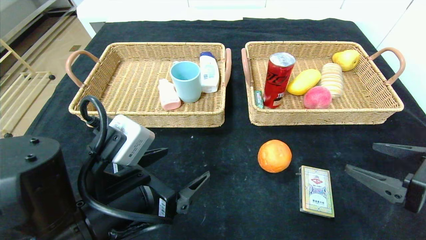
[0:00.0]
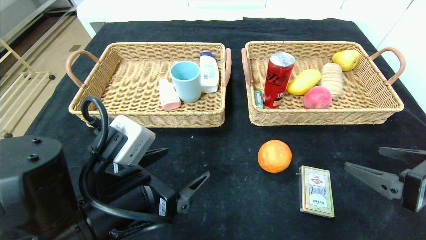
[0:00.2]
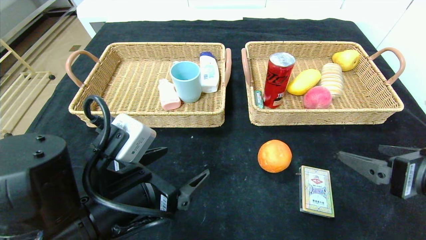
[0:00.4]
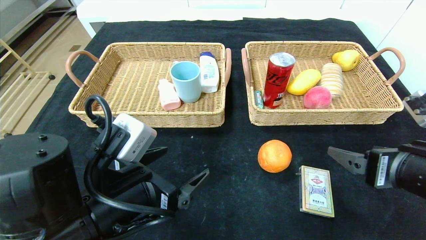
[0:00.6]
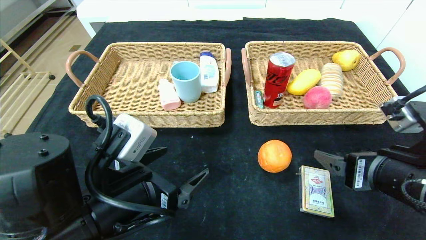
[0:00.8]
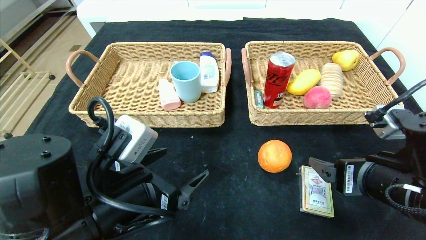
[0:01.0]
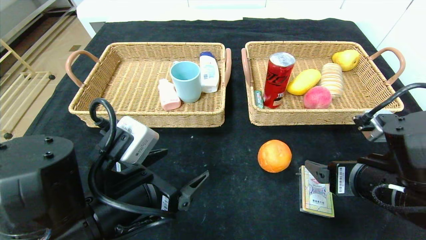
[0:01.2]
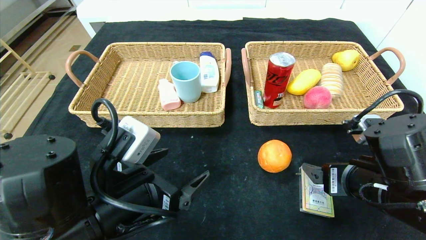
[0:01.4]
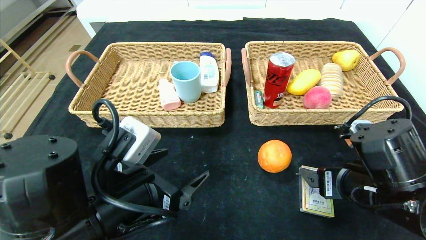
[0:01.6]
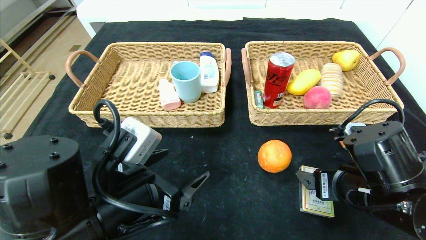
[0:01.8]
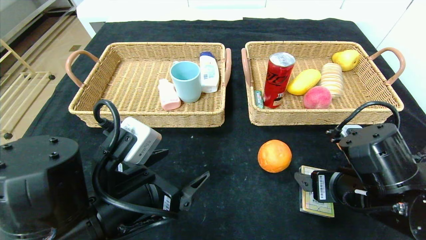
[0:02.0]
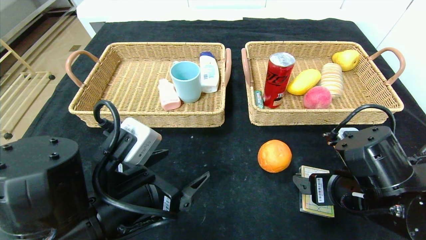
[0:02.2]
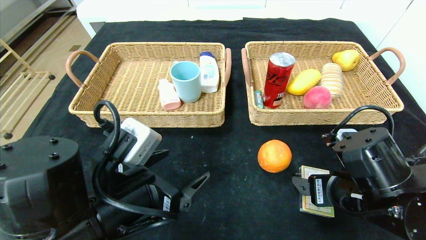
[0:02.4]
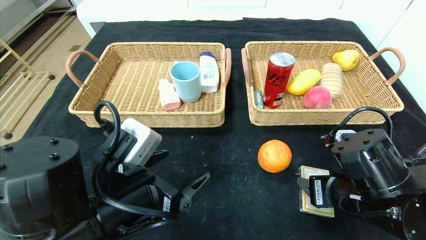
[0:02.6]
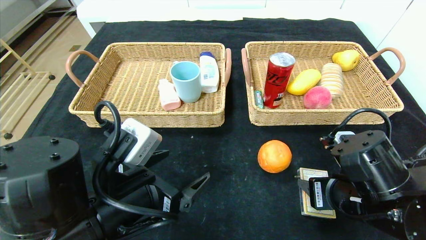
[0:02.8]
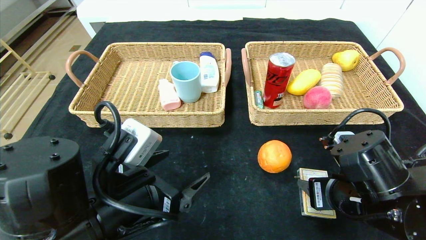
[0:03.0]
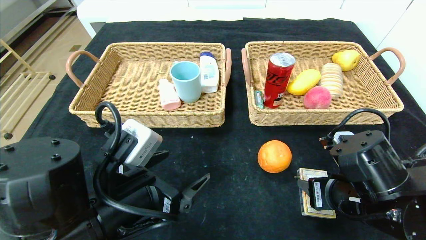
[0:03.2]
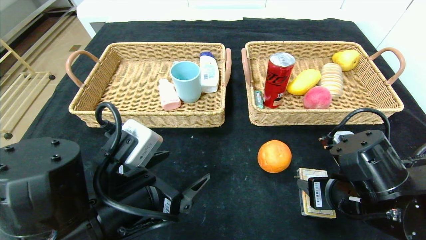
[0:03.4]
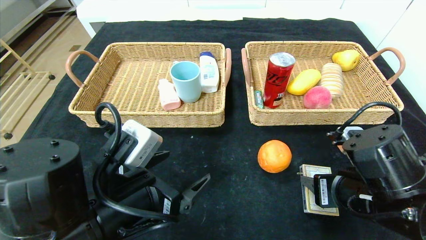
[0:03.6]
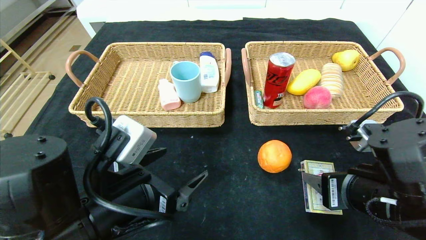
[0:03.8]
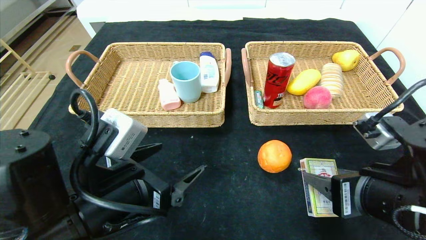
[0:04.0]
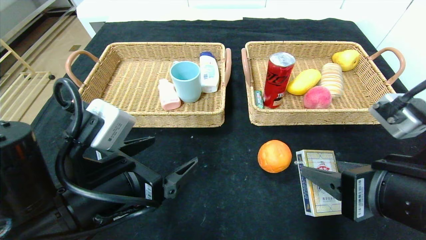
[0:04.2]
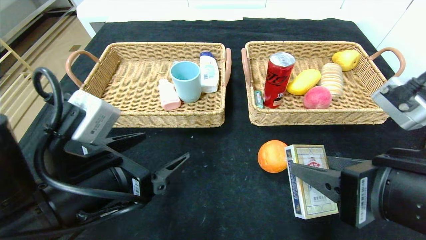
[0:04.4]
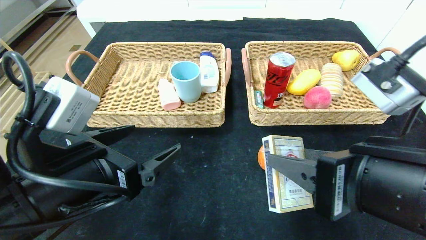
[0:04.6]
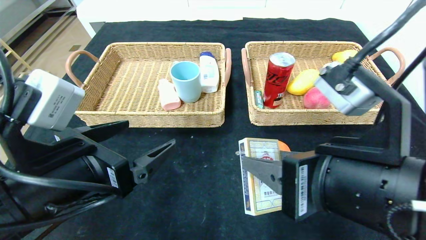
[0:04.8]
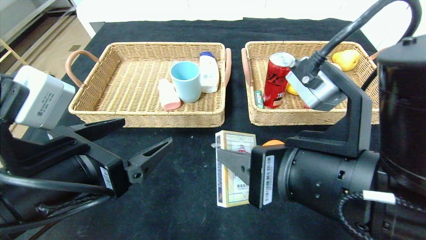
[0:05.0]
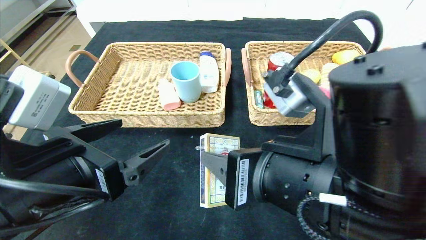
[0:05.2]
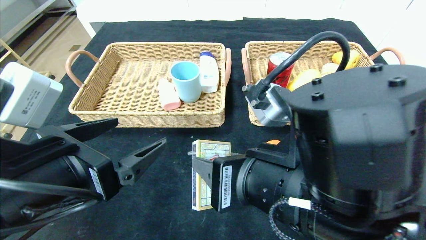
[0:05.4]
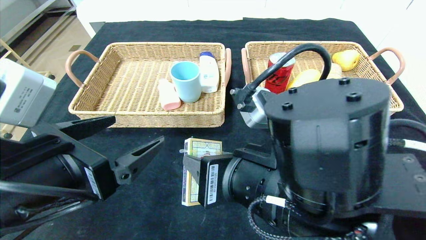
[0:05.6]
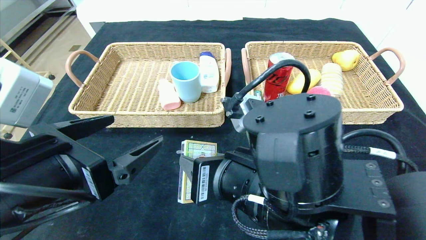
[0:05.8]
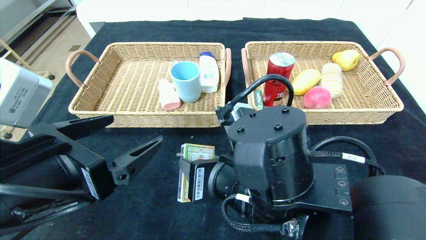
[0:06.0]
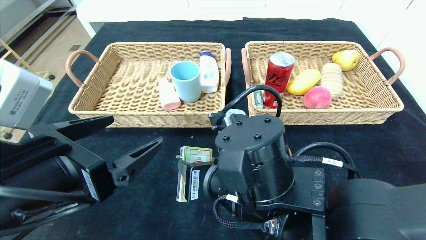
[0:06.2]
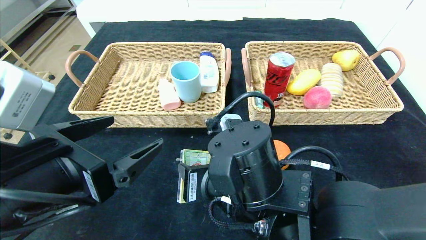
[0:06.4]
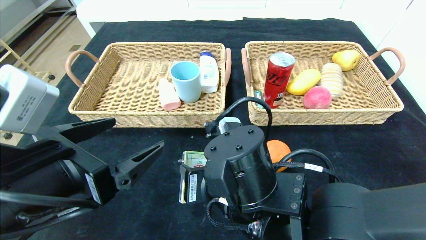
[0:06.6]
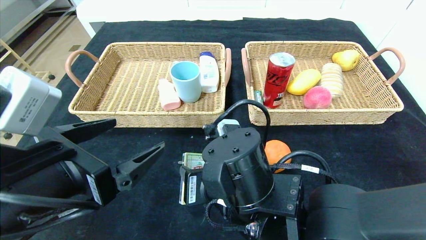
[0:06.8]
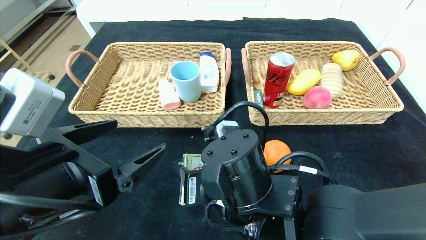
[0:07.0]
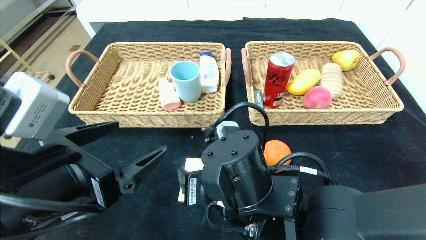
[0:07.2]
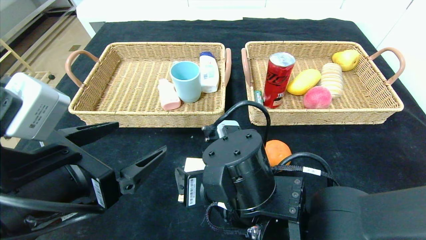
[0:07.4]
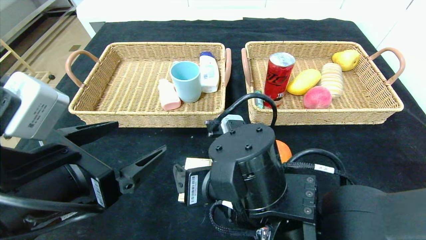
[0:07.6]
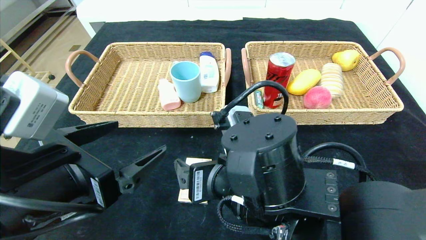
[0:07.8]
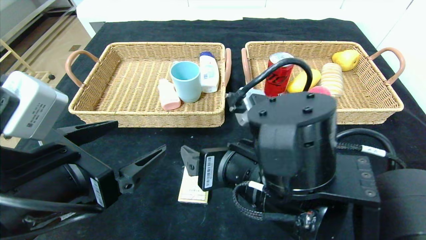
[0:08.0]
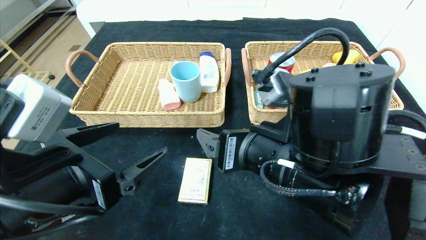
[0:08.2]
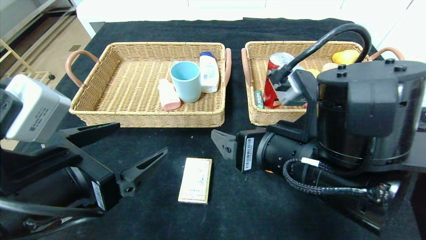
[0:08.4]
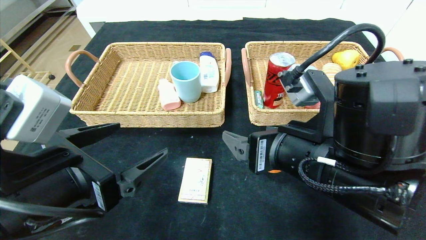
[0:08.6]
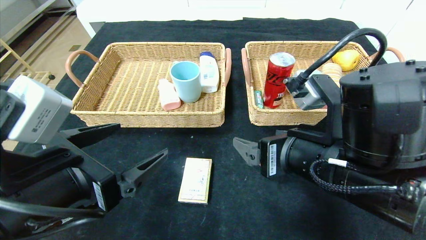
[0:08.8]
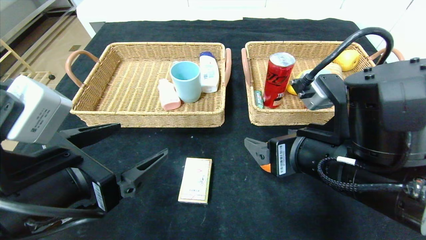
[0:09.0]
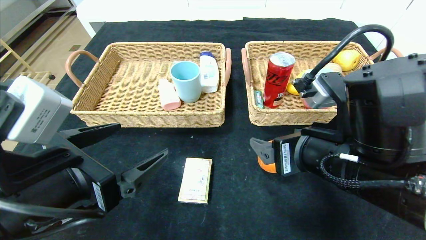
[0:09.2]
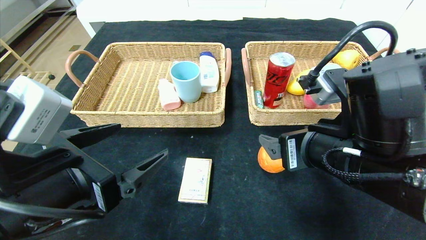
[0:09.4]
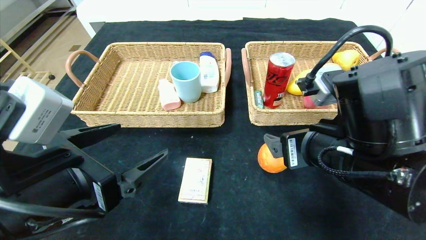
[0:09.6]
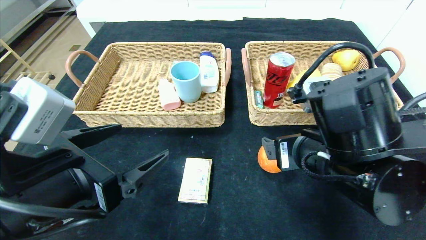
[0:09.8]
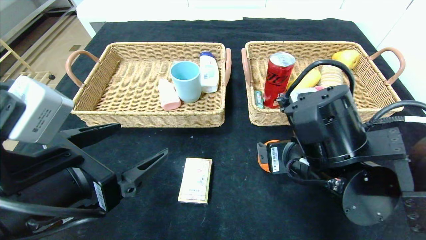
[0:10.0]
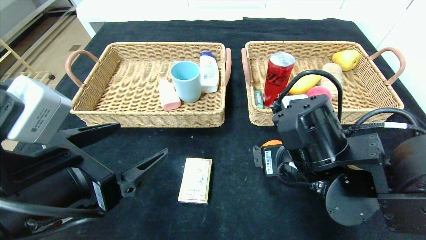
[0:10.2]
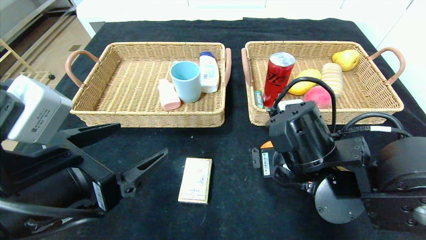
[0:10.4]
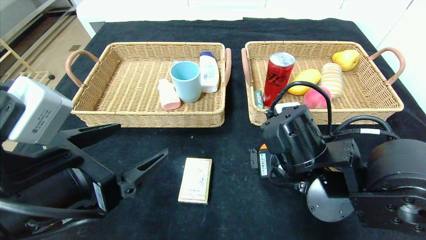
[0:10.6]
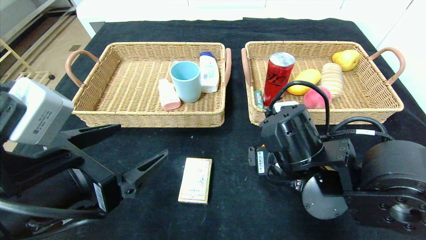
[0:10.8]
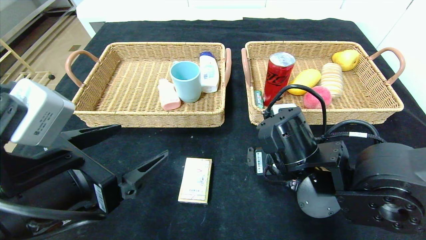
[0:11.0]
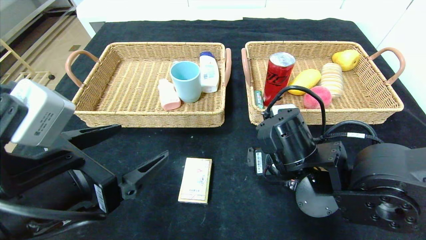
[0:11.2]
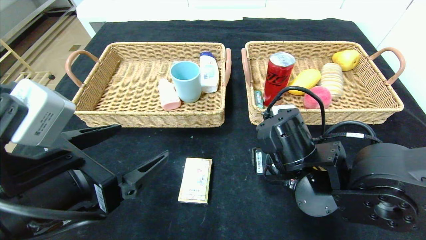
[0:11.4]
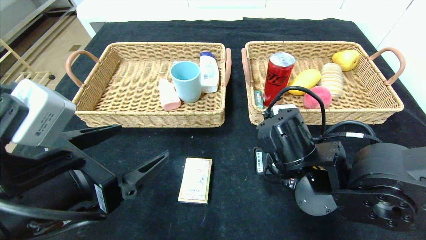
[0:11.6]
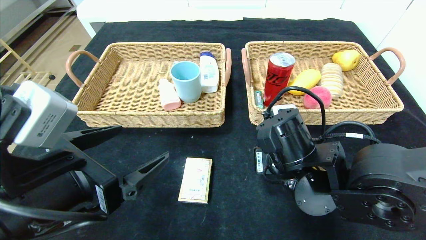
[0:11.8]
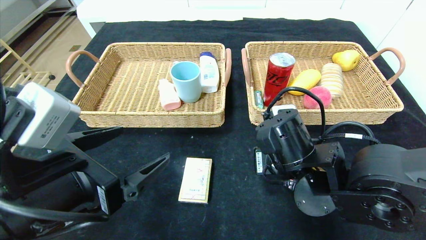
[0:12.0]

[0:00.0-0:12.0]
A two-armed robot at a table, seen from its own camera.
Step, 0:00.0 to 0:07.4: Place the playing cards in the center of the table.
0:00.0 to 0:01.6: The right gripper travels to the left by some 10 cm.
0:01.6 to 0:03.0: The right gripper closes its fingers.
0:03.0 to 0:04.4: The right gripper goes about 10 cm upward and backward.
0:04.4 to 0:06.0: The right gripper moves to the left and forward, some 15 cm.
0:07.6 to 0:09.0: The right gripper moves to the right and upward, approximately 10 cm.
0:09.0 to 0:10.4: The right gripper ends up approximately 5 cm from where it was.
0:10.4 to 0:12.0: There are only small adjustments of the grippers.

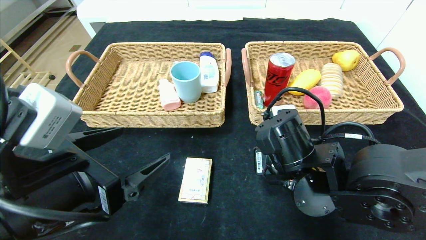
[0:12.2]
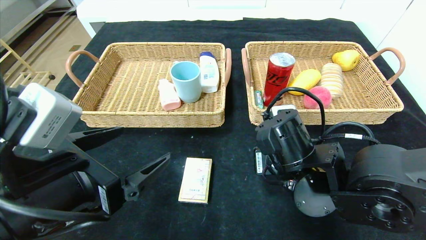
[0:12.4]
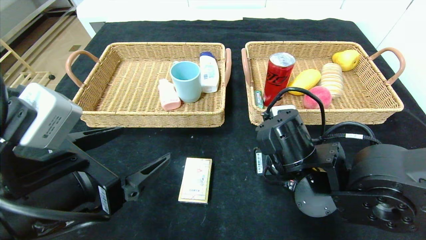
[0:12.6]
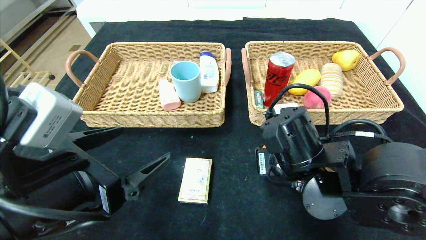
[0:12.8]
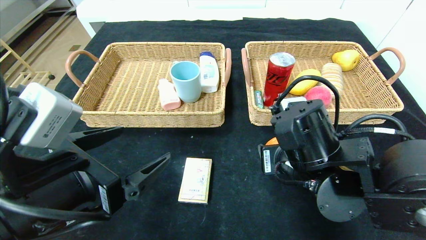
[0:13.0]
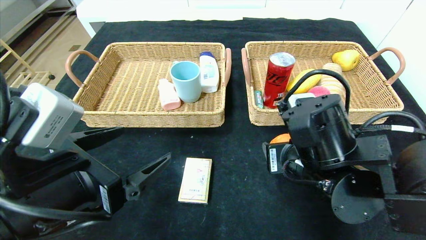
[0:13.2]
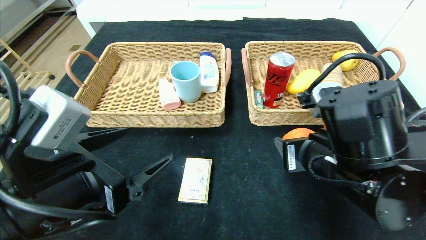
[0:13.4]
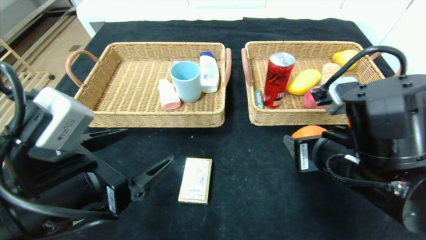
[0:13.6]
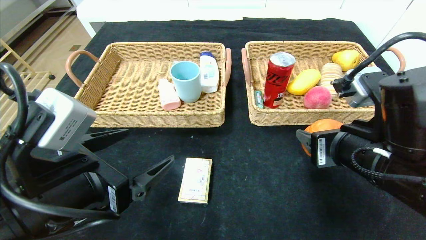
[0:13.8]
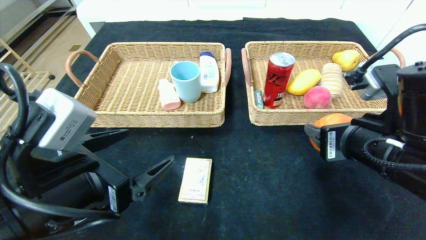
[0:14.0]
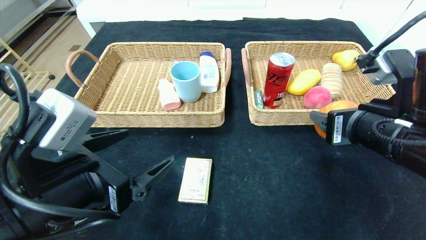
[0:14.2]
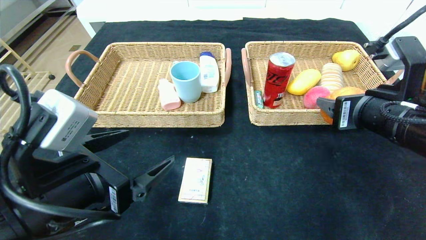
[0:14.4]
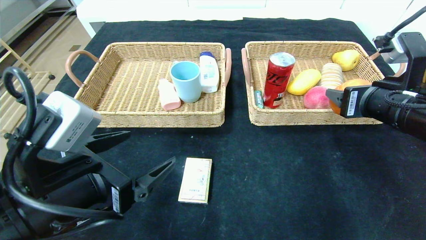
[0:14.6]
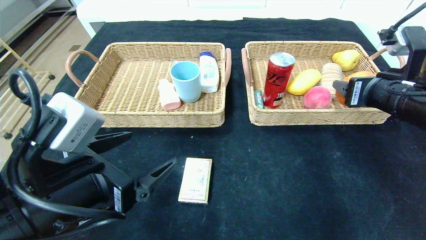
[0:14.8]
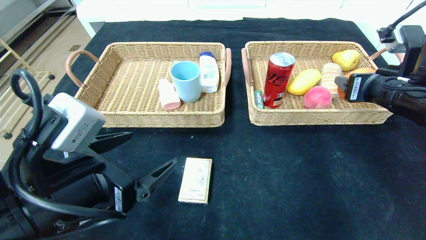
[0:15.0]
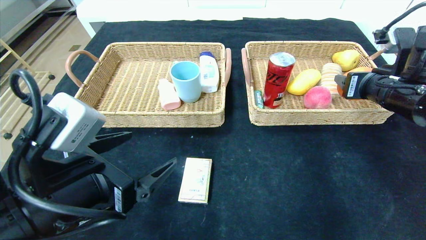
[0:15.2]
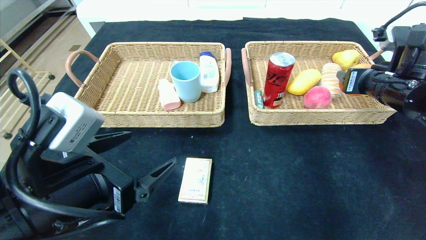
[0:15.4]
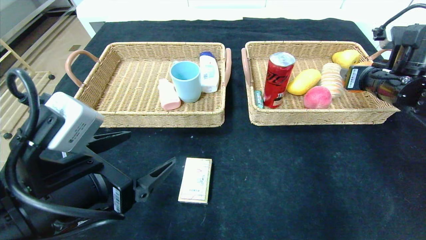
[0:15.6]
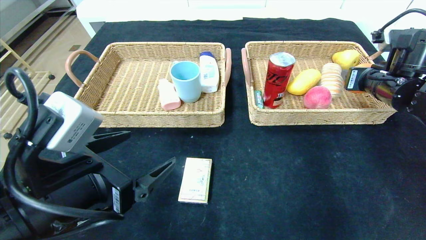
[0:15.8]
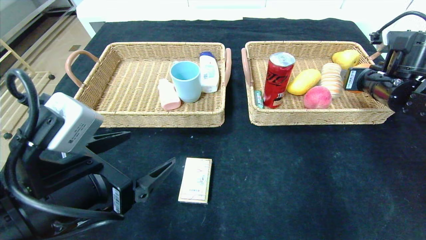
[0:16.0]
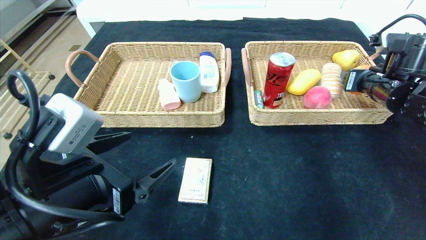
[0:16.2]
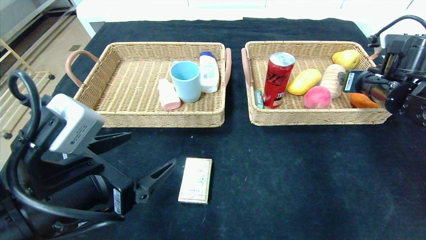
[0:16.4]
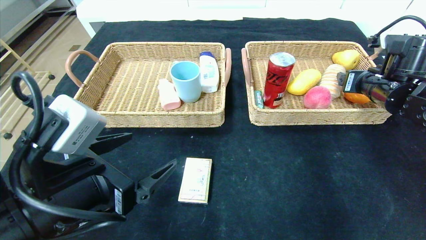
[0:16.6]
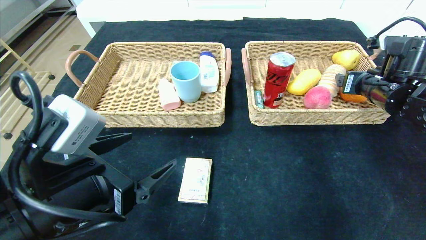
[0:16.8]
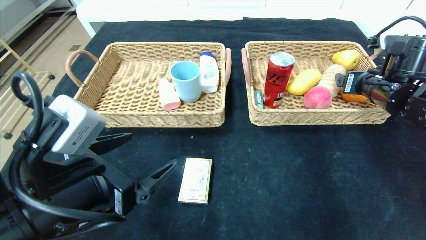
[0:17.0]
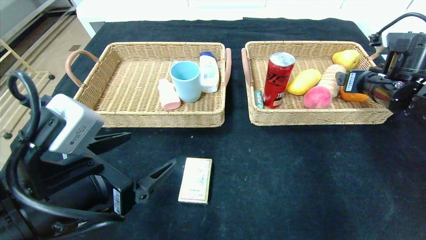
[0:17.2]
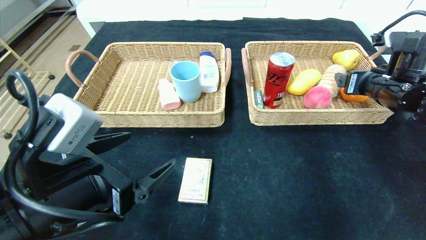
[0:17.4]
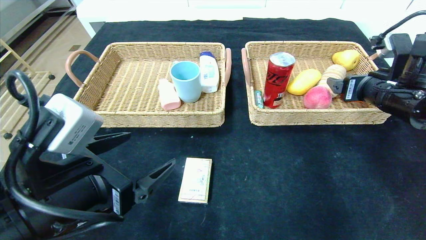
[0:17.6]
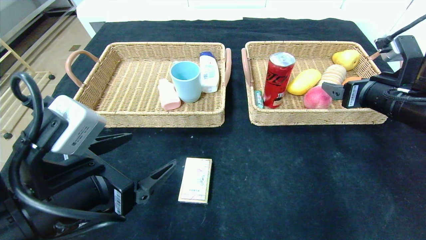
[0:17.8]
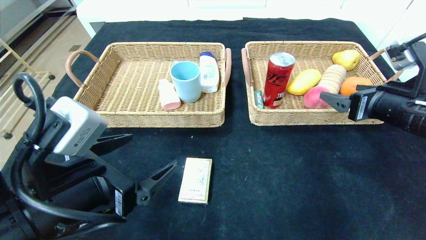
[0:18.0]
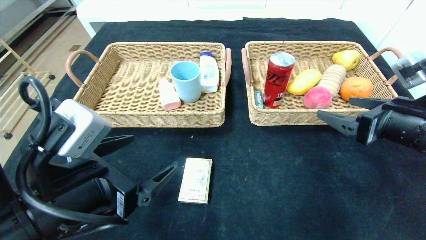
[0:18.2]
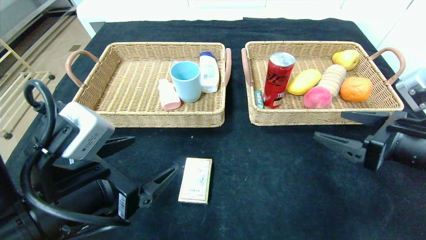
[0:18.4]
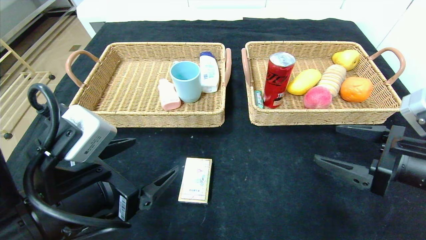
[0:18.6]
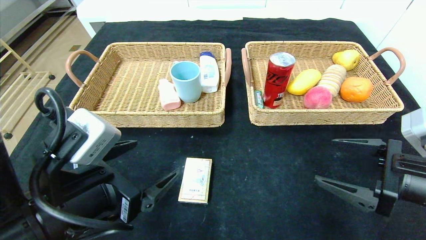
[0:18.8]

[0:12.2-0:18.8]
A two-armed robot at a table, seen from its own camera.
Step, 0:12.2 to 0:16.4: Grasp the orange and put it in the right basket.
0:12.2 to 0:13.8: The right gripper moves to the right, upward and backward, some 10 cm.
0:13.8 to 0:15.4: The right gripper moves forward and to the right, approximately 20 cm.
0:15.4 to 0:17.2: The grippers move only a little.
0:17.2 to 0:18.8: The right gripper heads backward and downward, covering approximately 20 cm.
